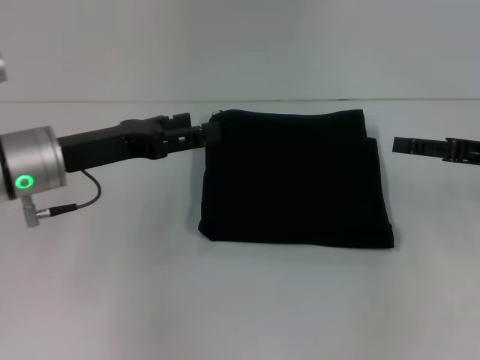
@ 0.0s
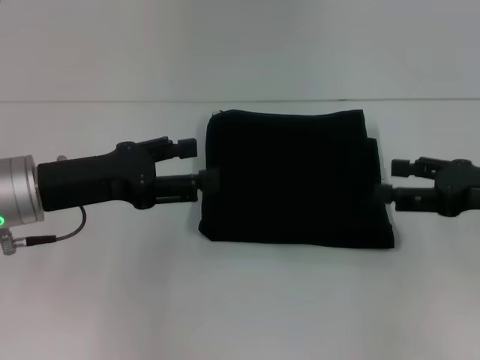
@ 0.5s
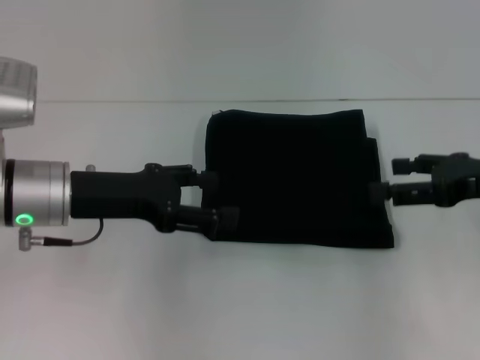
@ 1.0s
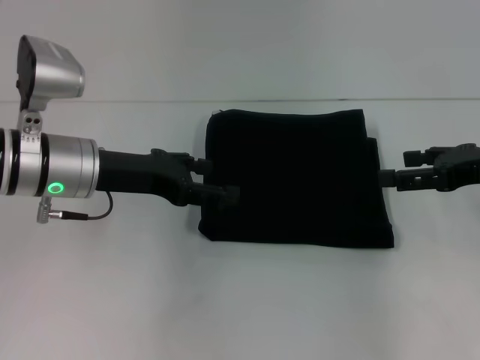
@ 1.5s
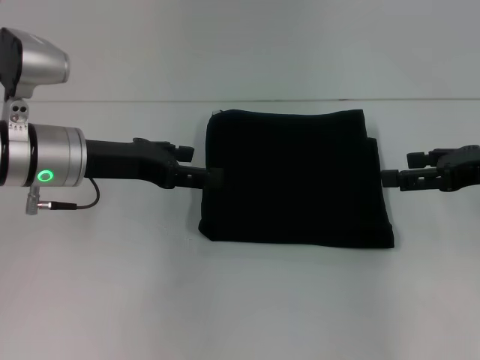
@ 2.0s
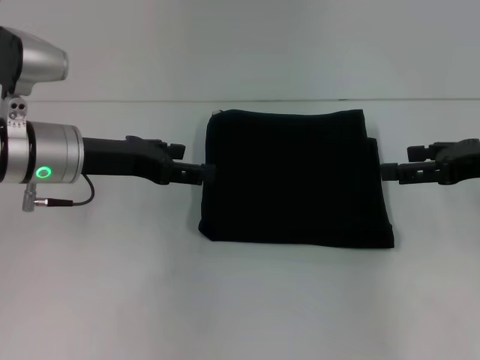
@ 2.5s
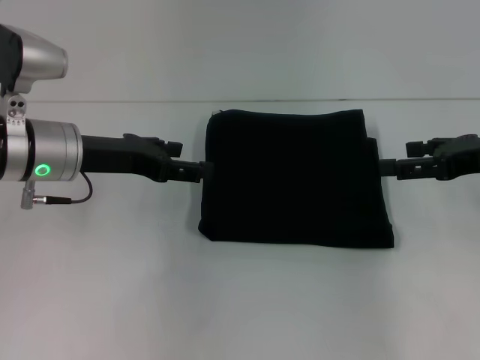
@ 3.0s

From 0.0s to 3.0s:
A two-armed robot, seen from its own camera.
From 1.5s to 3.0s: The grippers make only small movements.
